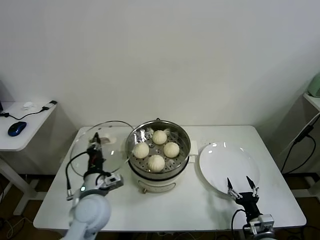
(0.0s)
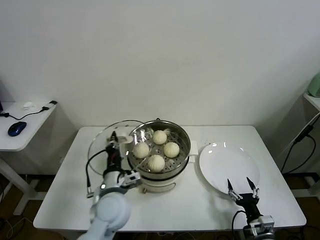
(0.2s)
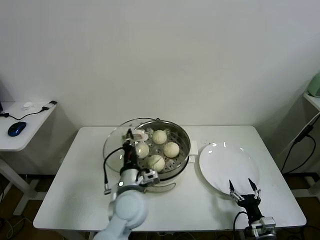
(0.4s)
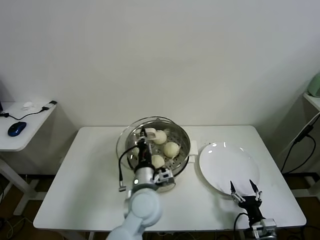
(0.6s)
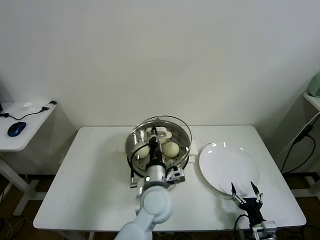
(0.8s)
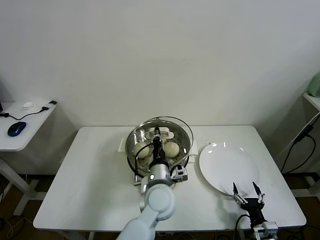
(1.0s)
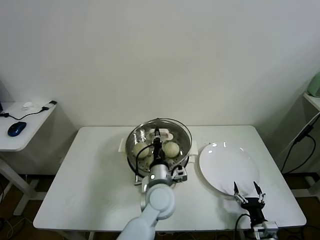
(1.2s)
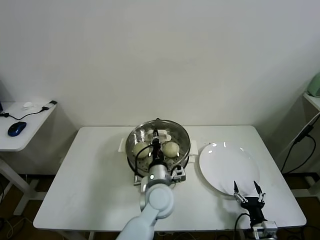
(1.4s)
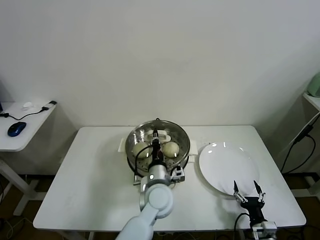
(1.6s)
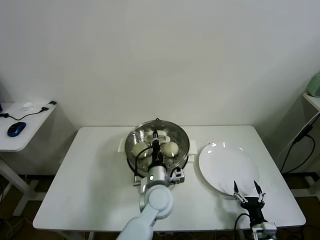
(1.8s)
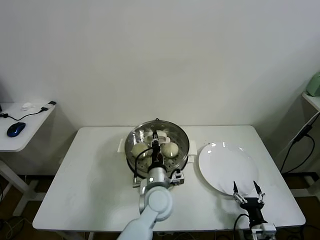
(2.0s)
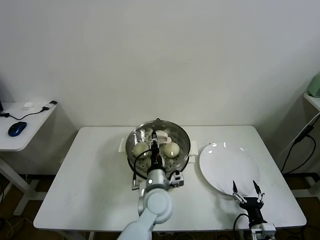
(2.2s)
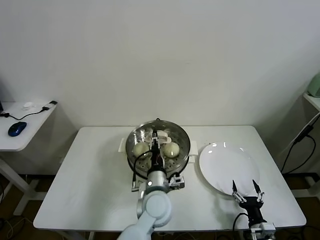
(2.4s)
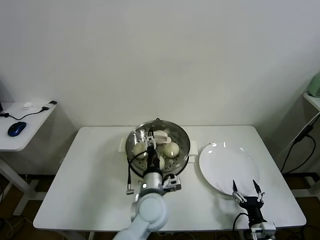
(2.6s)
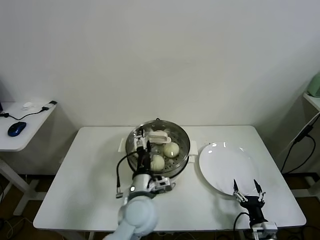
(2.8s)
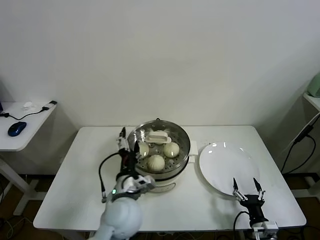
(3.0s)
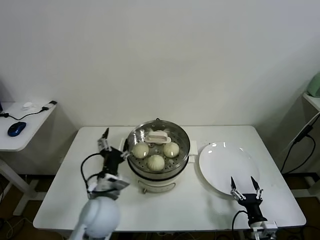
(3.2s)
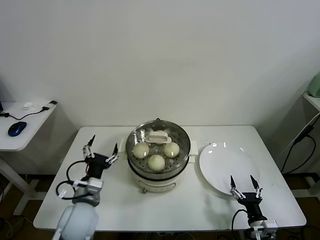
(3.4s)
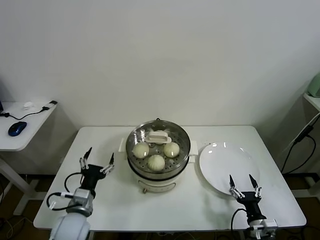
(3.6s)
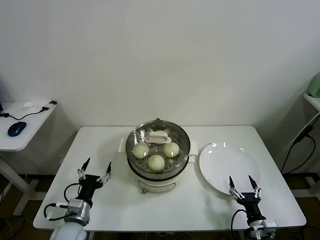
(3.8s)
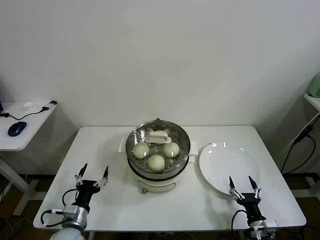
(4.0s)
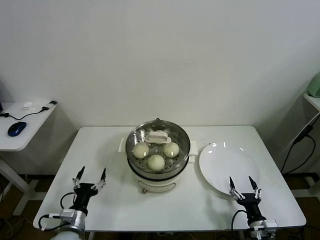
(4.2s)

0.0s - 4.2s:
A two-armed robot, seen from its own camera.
Task of the whole recording: take steamed baozi put them in steamer.
Step, 0.0s - 2.6s: Place the pot lid on the steamer with left gripper.
0.0s - 1.4s: The left gripper heads to the right, covering roughly 20 cm.
1.4s - 2.8s: The left gripper ends up about 5 cm from where it was, and opens.
2.8s - 4.2s: The left gripper travels to the left and downward by about 30 cm.

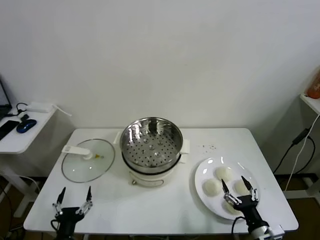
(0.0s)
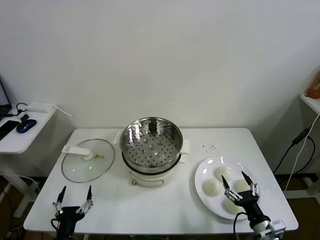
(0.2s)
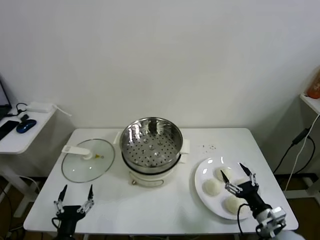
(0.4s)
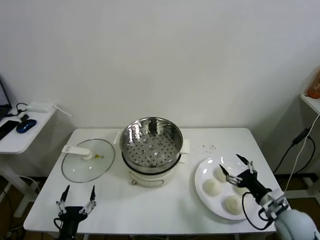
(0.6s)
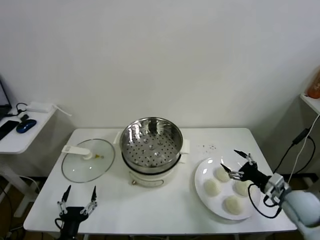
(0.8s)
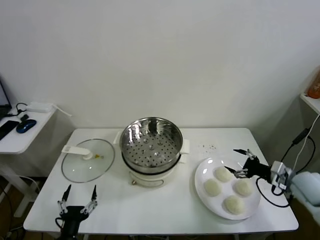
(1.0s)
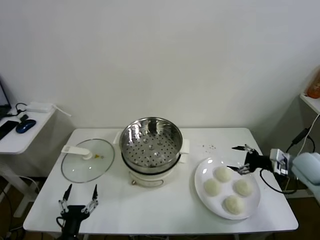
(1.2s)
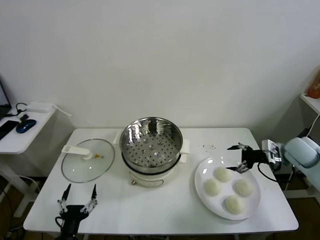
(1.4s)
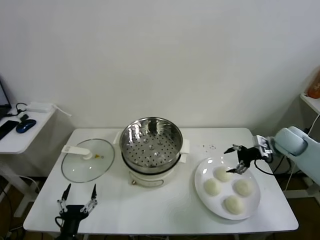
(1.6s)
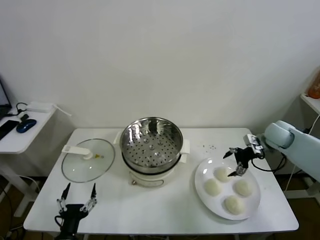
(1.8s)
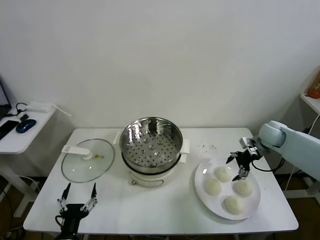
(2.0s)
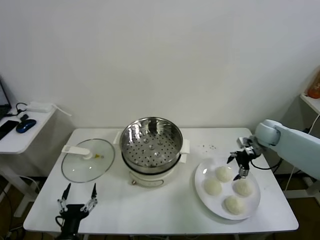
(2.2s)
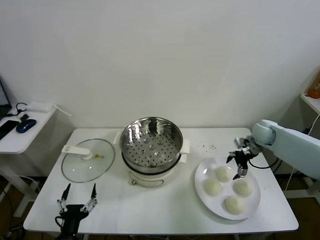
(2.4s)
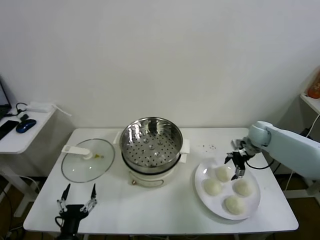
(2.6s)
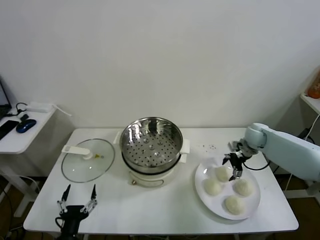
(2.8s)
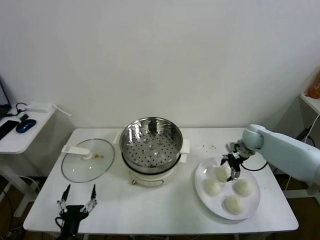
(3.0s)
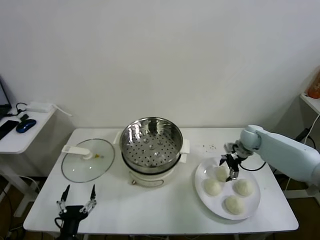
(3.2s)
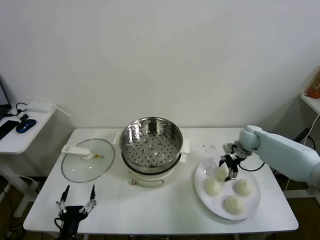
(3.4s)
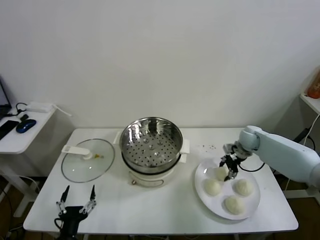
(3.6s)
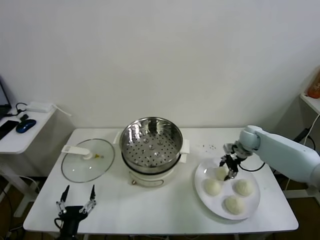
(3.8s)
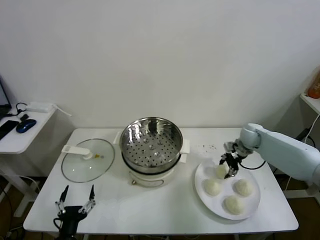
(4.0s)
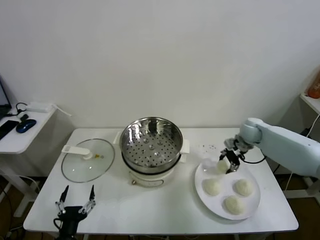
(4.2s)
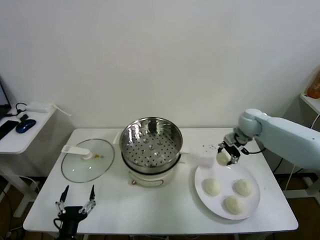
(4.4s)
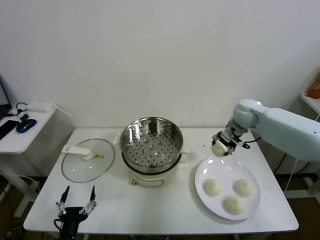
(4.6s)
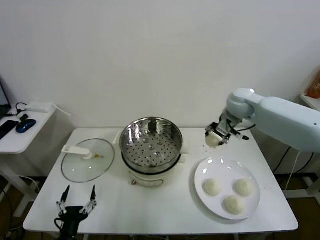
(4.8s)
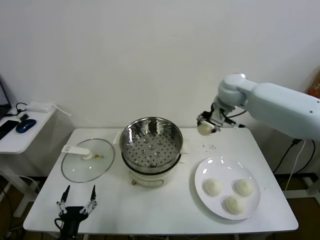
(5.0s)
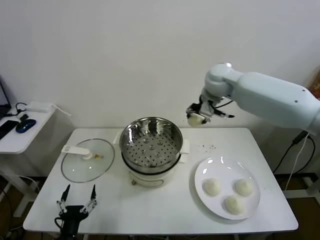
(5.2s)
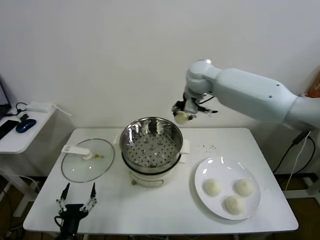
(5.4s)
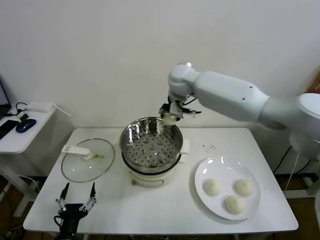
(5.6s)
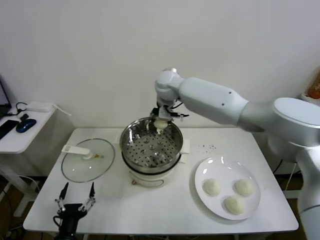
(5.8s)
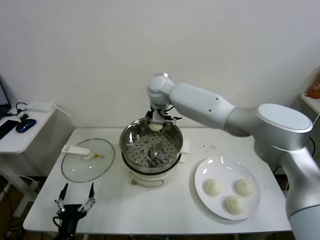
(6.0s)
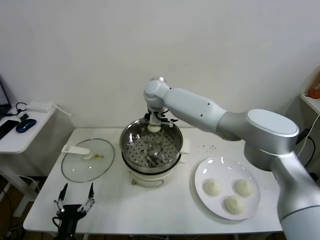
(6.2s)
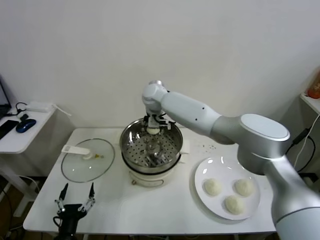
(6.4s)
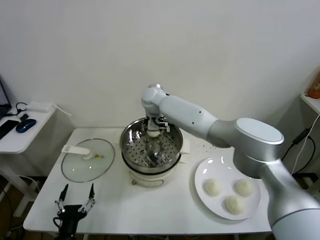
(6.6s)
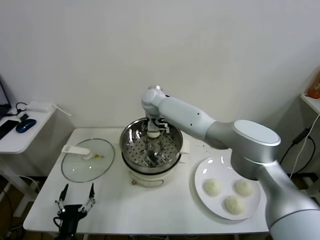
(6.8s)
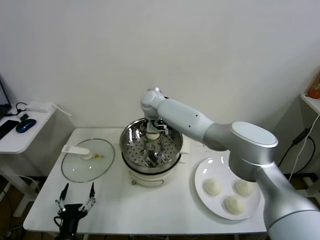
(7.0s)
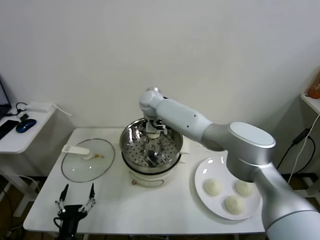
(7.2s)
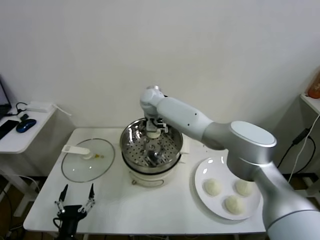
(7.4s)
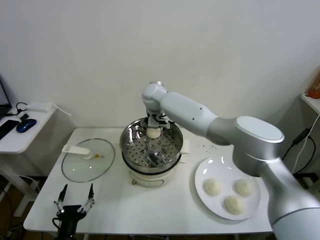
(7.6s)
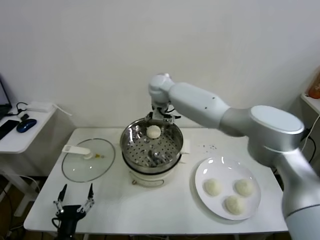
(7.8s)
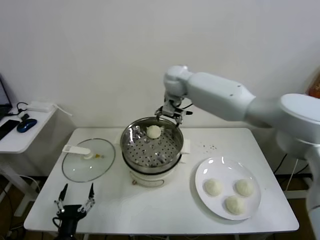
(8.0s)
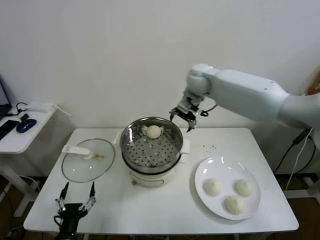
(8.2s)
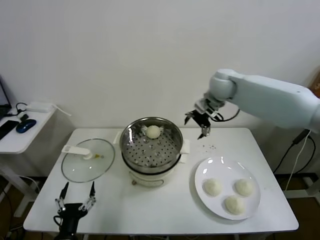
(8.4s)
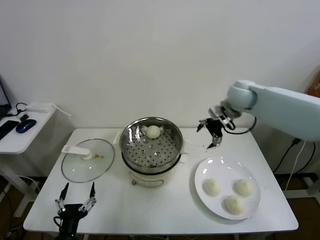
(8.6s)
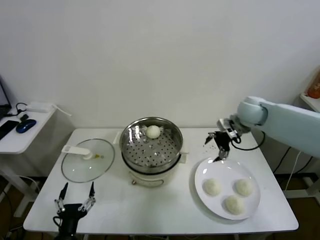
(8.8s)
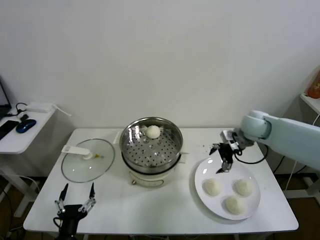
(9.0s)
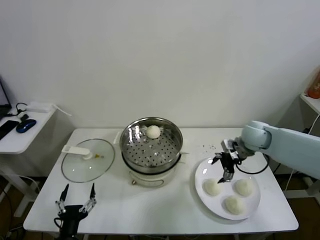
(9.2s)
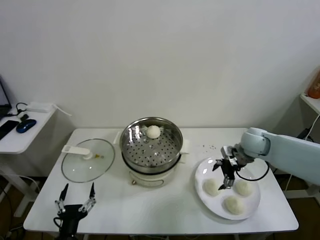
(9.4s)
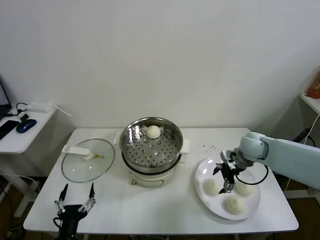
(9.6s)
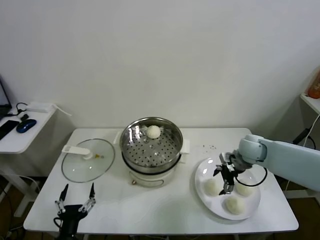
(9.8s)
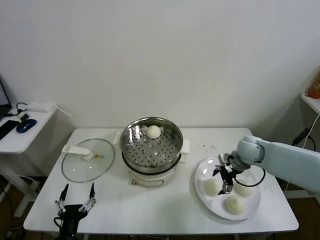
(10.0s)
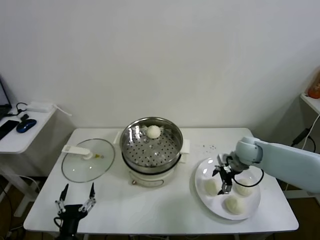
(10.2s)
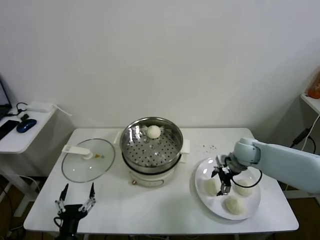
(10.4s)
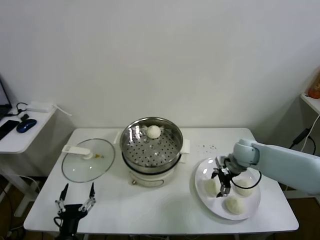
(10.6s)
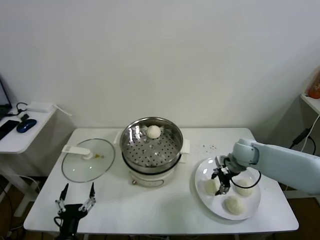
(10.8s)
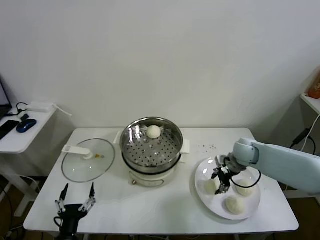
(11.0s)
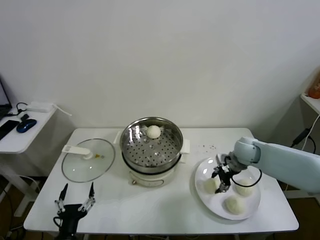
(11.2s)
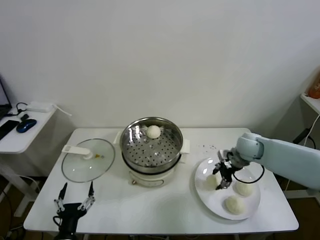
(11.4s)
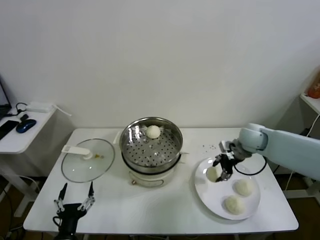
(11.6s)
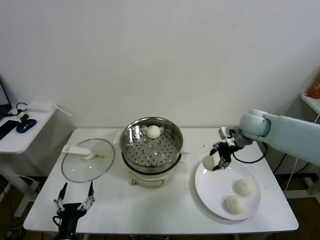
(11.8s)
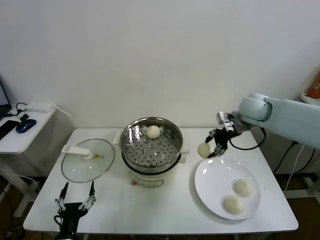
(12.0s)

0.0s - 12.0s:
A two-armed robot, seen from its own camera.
Task of the whole recording: take steamed baozi put them in steamer.
Step, 0.0s - 3.8s: Grasp the baozi in the plate with right gripper.
Step, 4.0s - 7.6s: Place the baozi on the steamer with right gripper.
Step, 7.8s - 10.8s: Grasp the baozi in the plate with right gripper.
1.6s - 3.0s: The right gripper is displaced downward, to the left and forward by approximately 10 cm.
3.0s - 4.4s: The right gripper heads upward, covering about 10 cm, and closes its fingers.
4.4s - 6.0s: The right gripper moves to the left, approximately 35 cm.
6.0s - 7.6s: The right gripper opens up.
7.6s - 9.0s: The right gripper goes some 35 cm to the right.
9.0s - 10.4s: The right gripper is displaced downward by approximately 10 cm.
10.4s - 12.0s: The right gripper moves upward, approximately 20 cm, and closes.

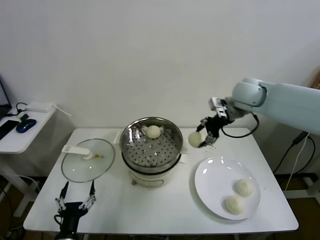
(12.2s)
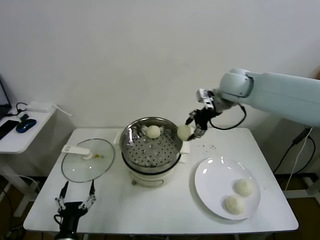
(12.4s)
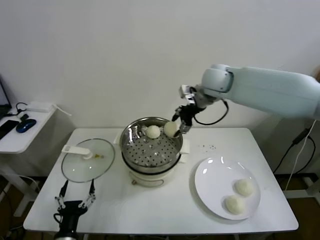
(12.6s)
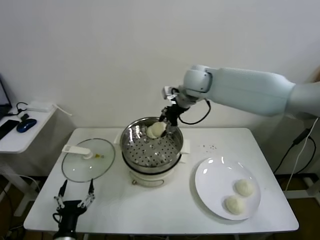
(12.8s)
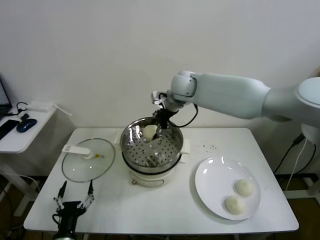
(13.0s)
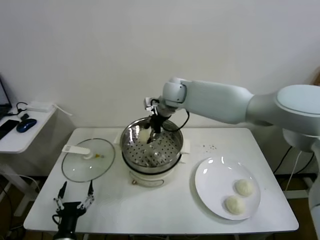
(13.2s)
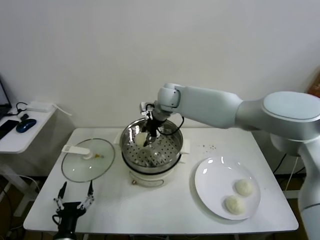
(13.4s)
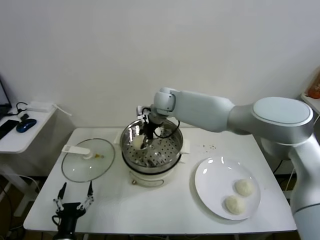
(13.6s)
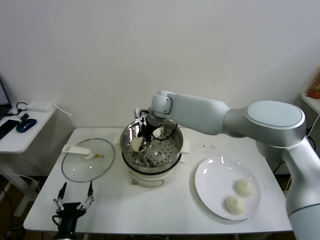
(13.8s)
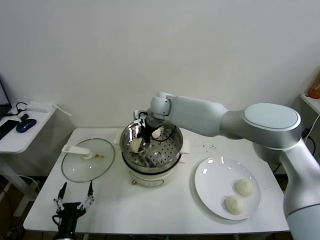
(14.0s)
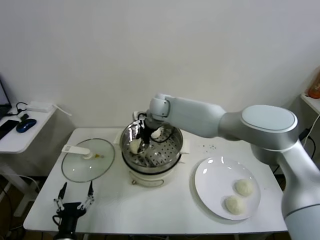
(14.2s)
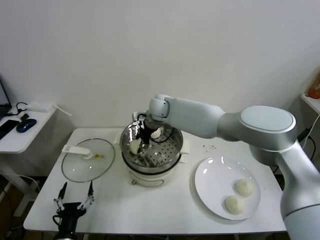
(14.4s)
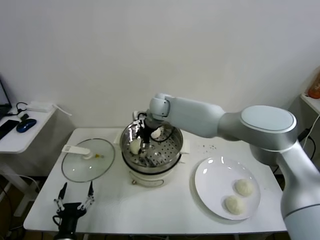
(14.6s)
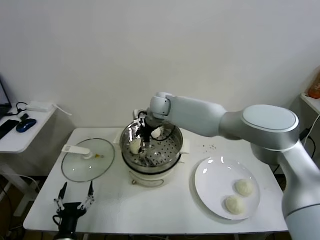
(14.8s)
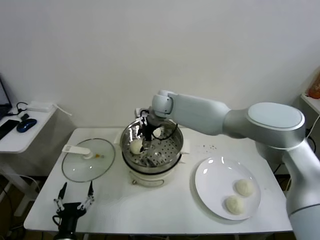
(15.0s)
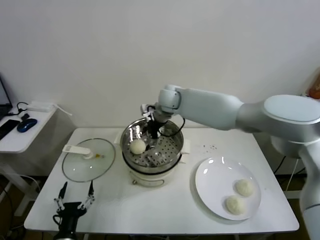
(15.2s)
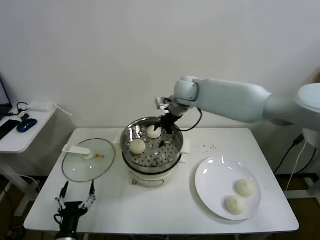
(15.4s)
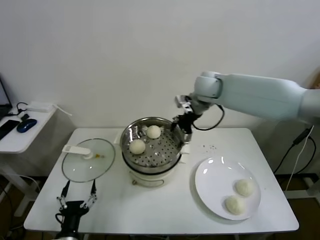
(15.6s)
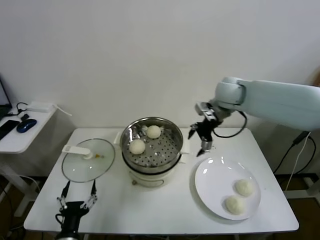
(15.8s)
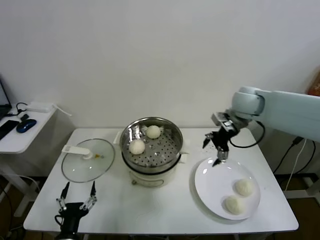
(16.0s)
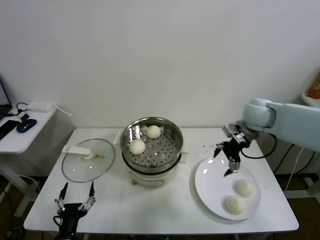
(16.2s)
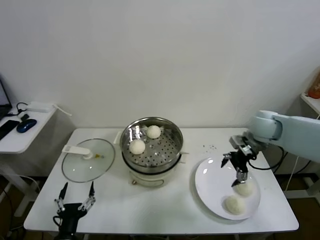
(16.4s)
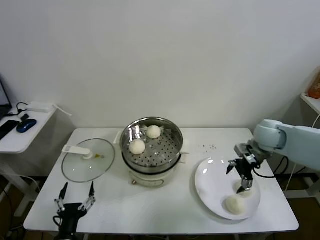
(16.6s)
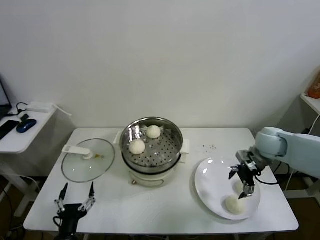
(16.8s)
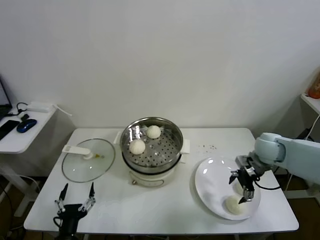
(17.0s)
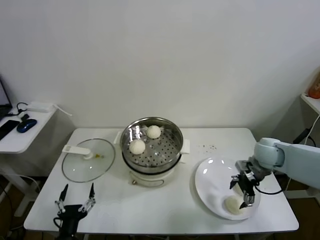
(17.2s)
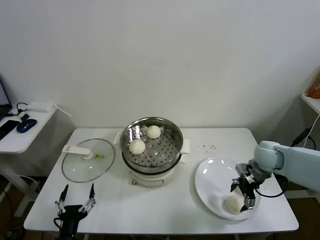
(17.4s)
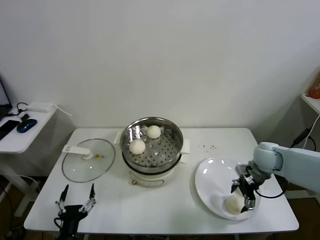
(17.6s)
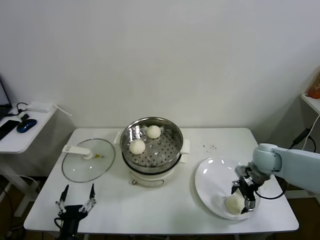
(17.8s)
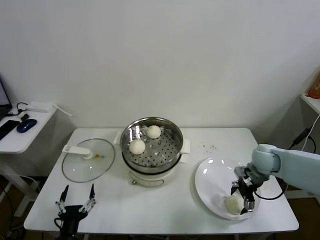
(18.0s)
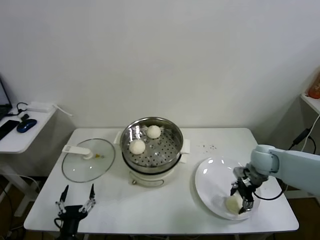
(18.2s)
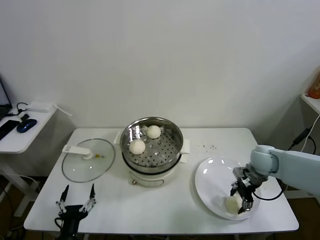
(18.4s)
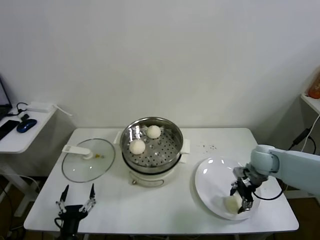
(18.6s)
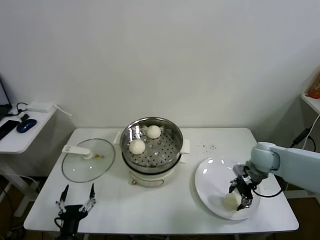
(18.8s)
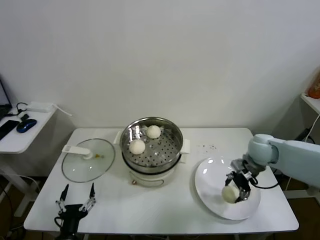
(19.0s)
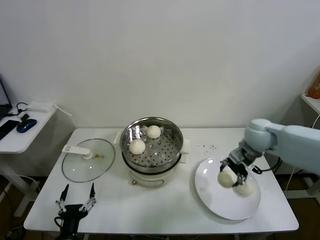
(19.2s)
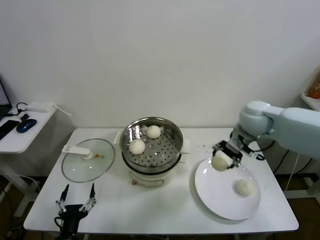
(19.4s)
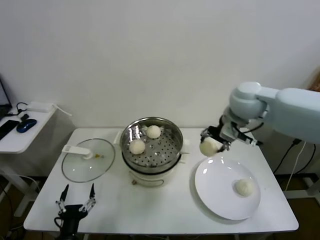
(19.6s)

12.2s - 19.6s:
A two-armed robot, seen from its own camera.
Task of the whole recording: take steamed baozi put them in steamer.
Step, 12.2s - 14.8s: Place the baozi on the steamer with right gripper.
Step, 15.0s - 18.6s: Grasp the baozi in the plate with right gripper.
12.2s - 13.6s: The right gripper goes roughly 25 cm to the left.
13.6s - 15.2s: The right gripper opens up.
15.2s - 16.6s: The right gripper travels to the right and backward by some 35 cm.
16.6s - 18.2s: The right gripper moves downward, roughly 10 cm, and closes.
18.2s - 19.6s: The right gripper travels upward and to the left by approximately 25 cm.
